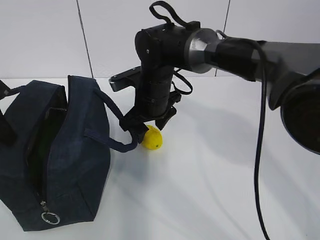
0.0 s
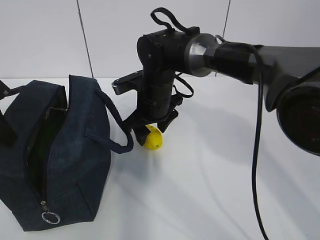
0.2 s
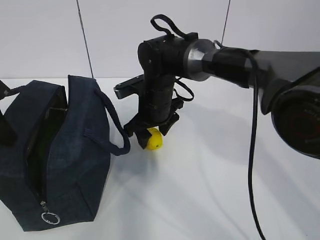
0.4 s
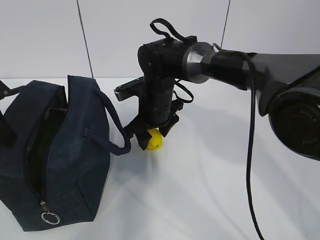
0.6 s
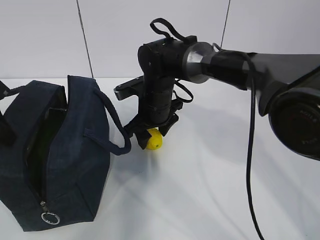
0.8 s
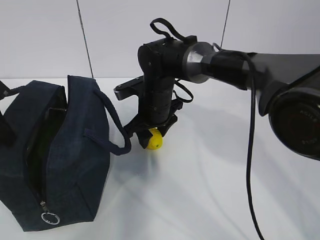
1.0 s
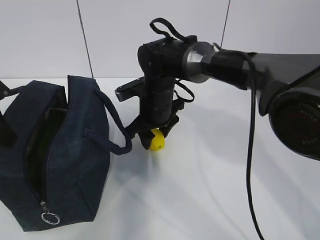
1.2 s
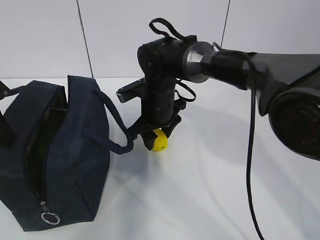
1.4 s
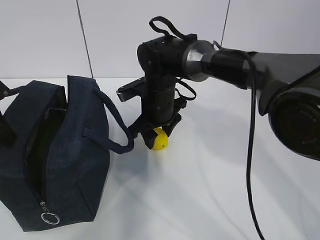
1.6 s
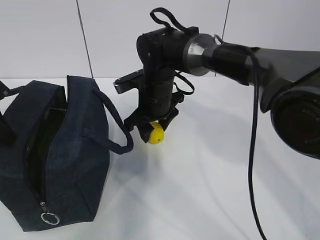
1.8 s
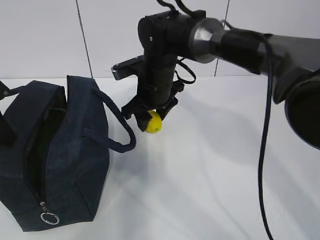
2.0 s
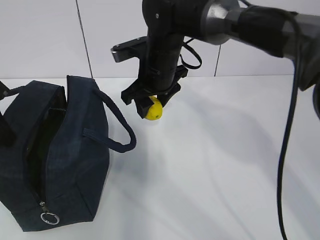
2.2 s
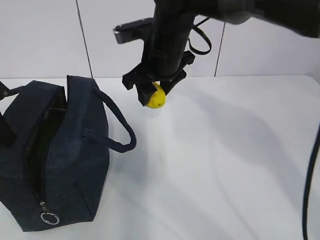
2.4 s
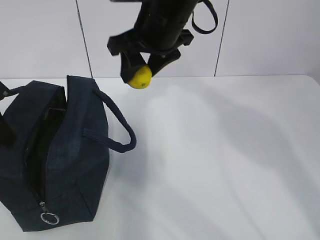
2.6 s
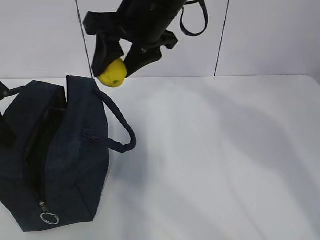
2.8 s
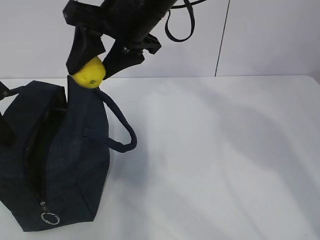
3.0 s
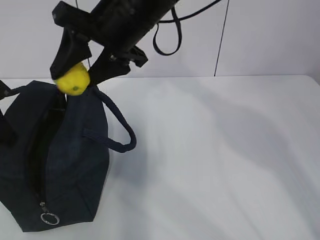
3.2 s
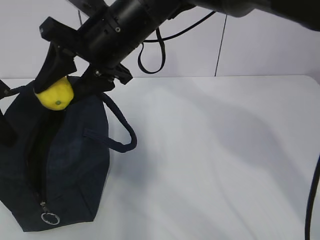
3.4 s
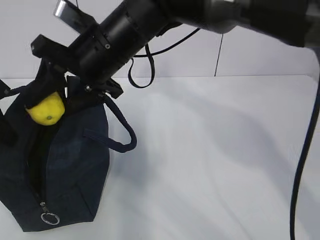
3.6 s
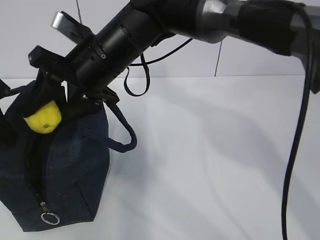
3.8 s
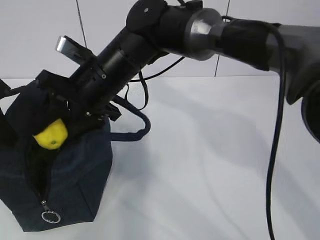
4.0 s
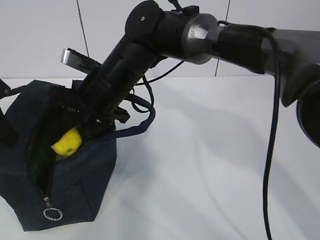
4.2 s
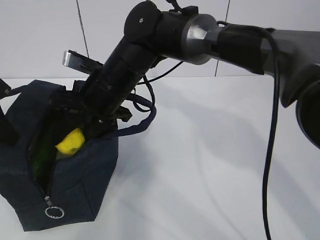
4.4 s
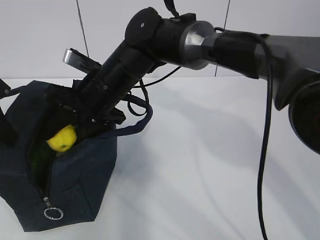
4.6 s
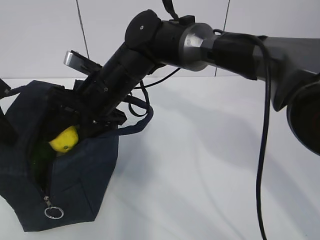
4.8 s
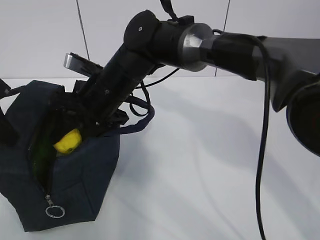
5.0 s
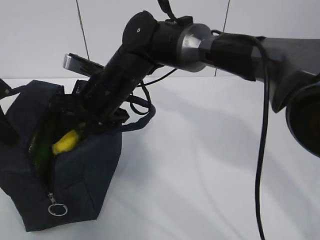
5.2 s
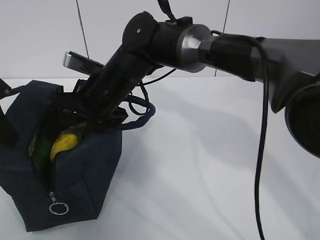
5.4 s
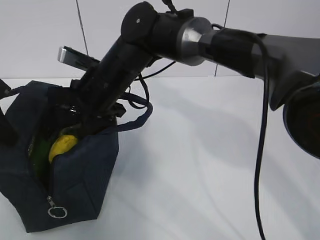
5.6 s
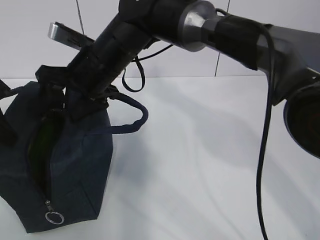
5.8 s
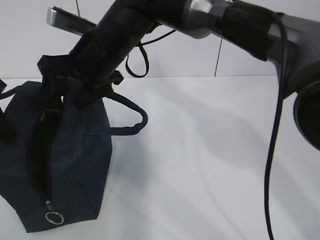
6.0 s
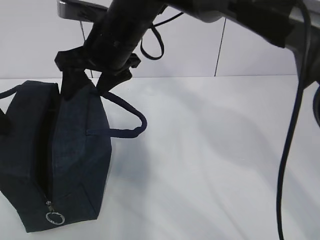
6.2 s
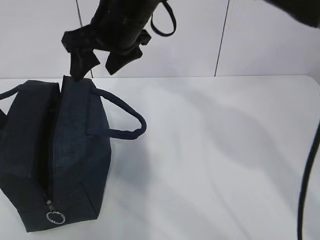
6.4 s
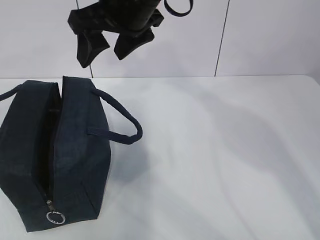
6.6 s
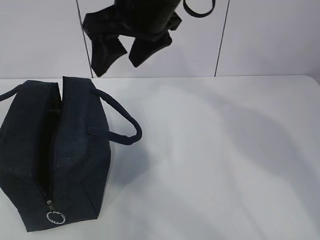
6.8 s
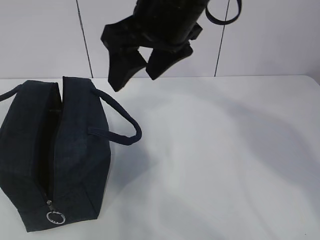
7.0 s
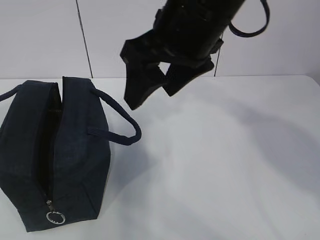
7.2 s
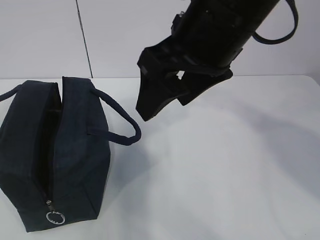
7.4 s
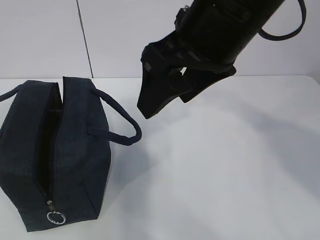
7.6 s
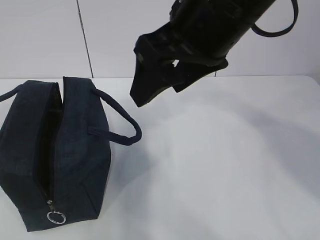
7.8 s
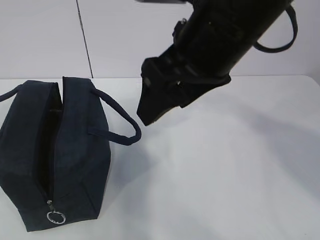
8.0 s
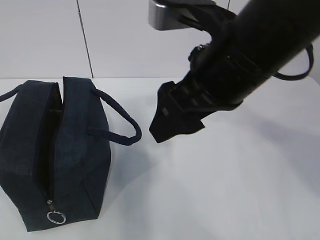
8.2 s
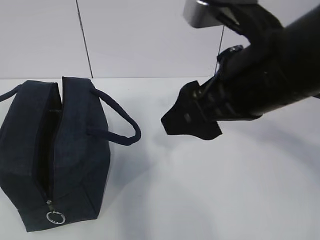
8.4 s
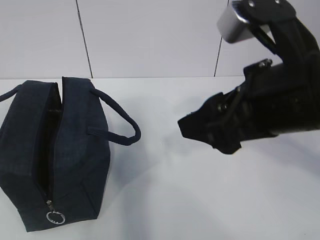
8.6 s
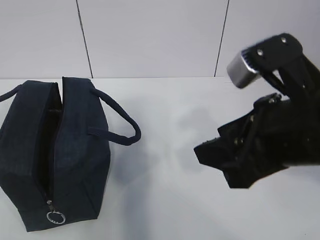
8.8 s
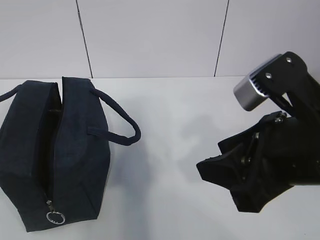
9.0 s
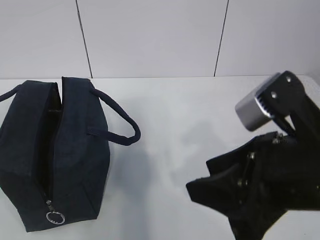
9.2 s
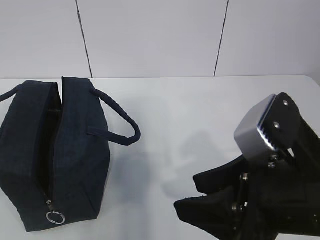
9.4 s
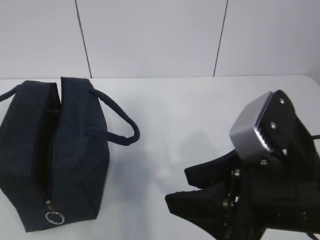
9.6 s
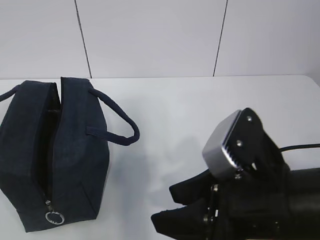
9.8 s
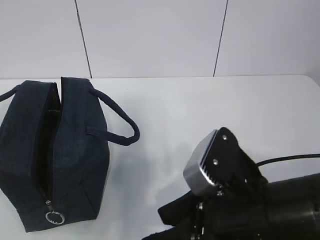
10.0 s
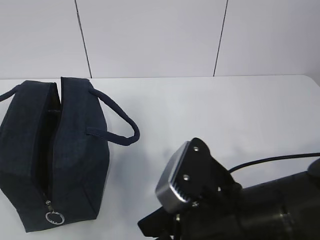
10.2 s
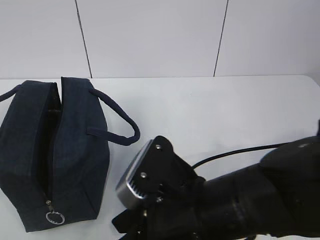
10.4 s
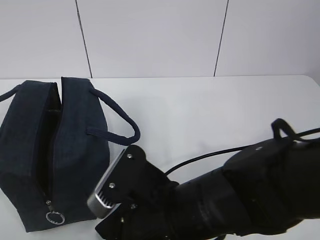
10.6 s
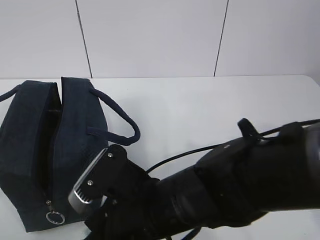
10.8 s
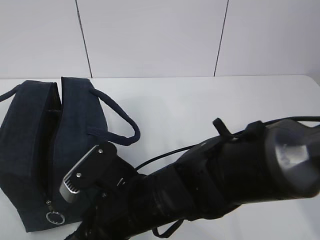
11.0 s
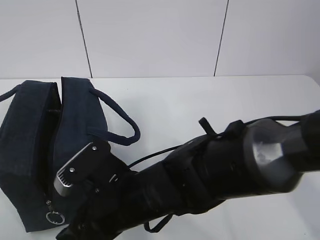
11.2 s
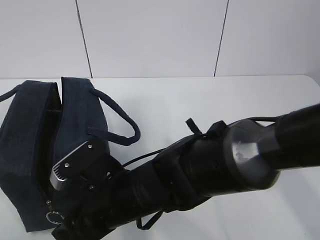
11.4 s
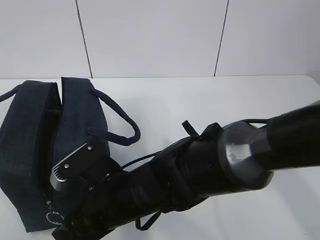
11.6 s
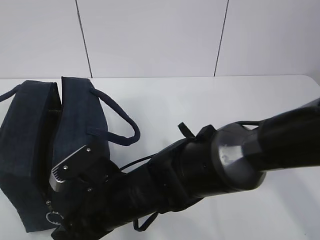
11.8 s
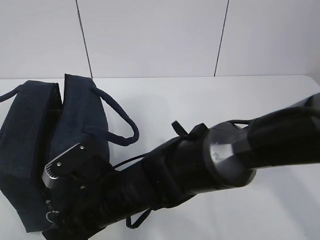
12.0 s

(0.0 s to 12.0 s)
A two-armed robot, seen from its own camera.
0.0 s - 1.6 s: The grippers stay close to where they were, moving slightly.
1.6 s - 3.0 s: The right gripper is displaced upward by about 20 cm.
3.0 s - 4.4 s: The right gripper goes approximately 15 cm downward and to the left.
4.4 s - 6.0 s: The right gripper goes about 5 cm upward.
6.0 s - 7.6 s: The right gripper goes about 20 cm backward, to the right and upward; the left gripper travels backward and upward by about 20 cm.
7.6 s - 9.0 s: The right gripper heads downward, backward and to the right, covering roughly 15 cm.
9.0 s - 10.4 s: The right gripper shifts roughly 15 cm to the left and downward.
10.4 s - 12.0 s: The right gripper heads to the left, downward and forward, covering approximately 15 cm.

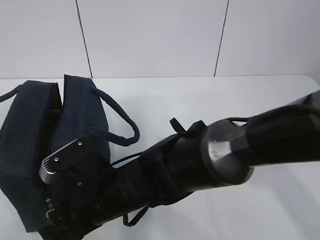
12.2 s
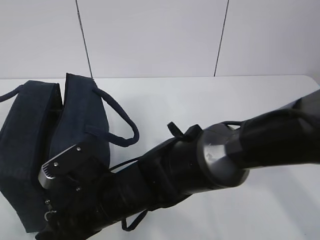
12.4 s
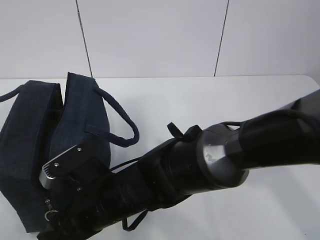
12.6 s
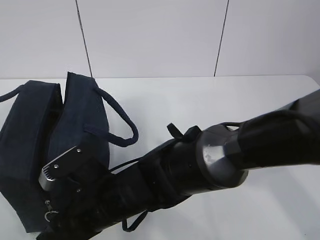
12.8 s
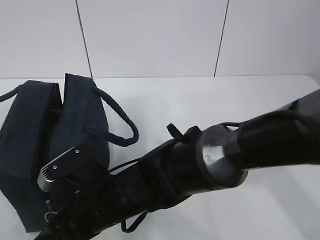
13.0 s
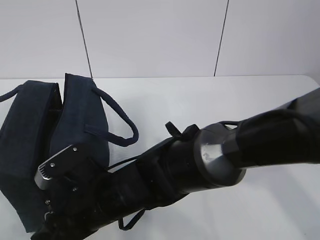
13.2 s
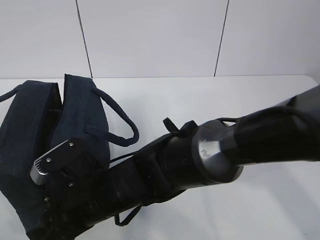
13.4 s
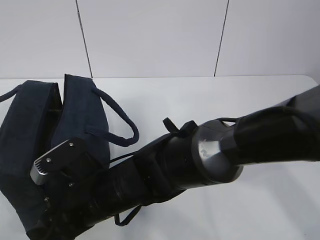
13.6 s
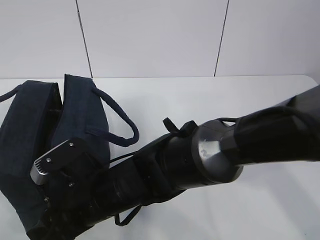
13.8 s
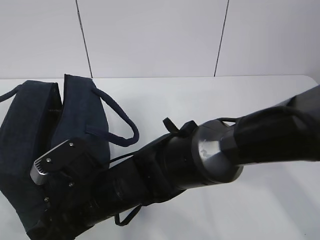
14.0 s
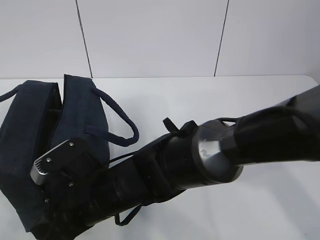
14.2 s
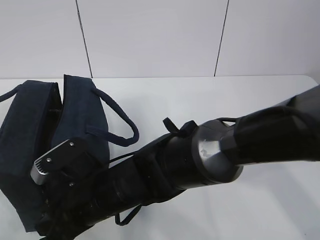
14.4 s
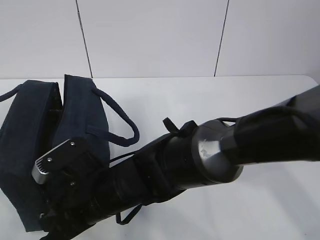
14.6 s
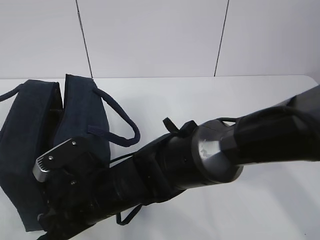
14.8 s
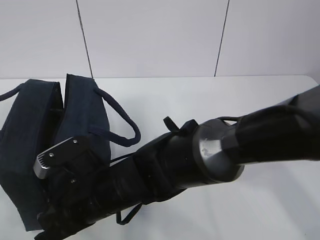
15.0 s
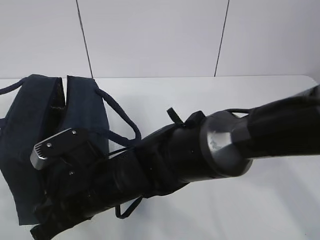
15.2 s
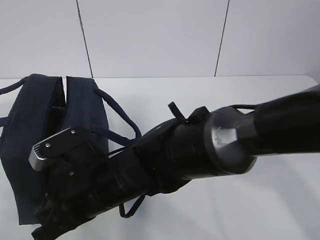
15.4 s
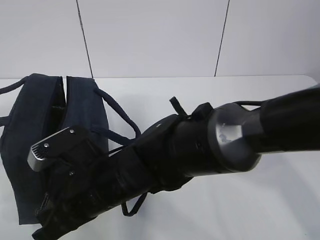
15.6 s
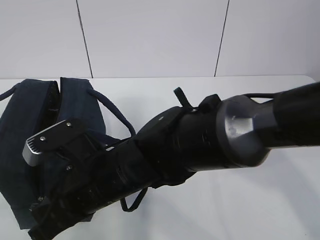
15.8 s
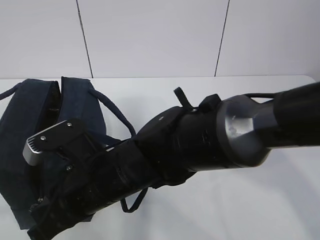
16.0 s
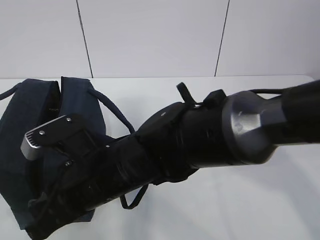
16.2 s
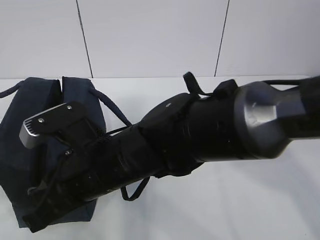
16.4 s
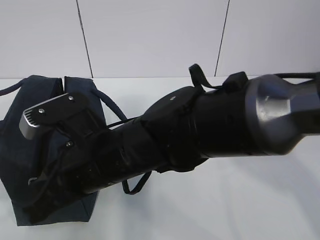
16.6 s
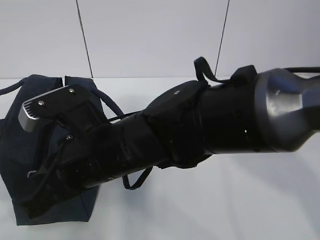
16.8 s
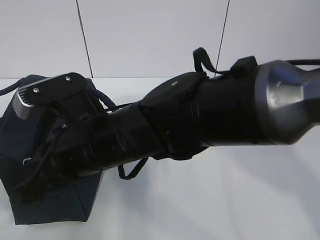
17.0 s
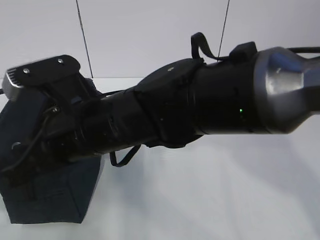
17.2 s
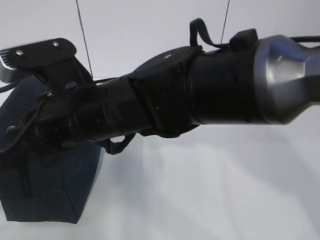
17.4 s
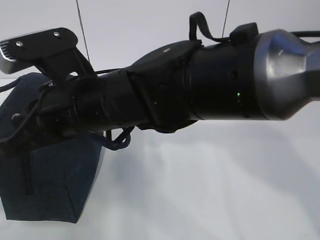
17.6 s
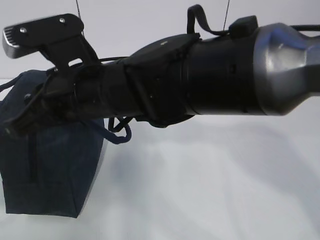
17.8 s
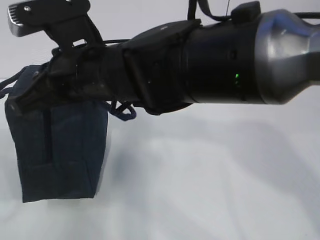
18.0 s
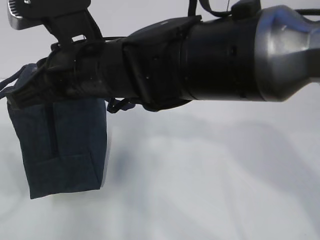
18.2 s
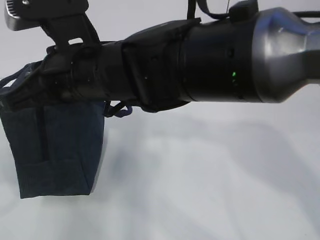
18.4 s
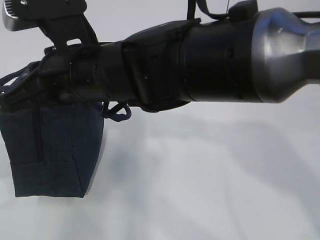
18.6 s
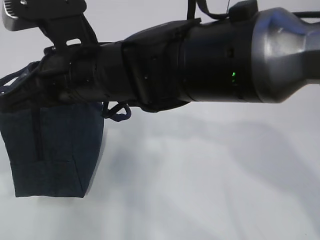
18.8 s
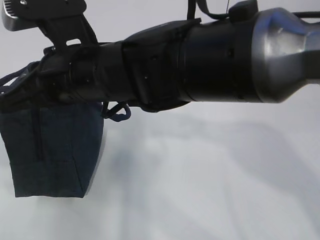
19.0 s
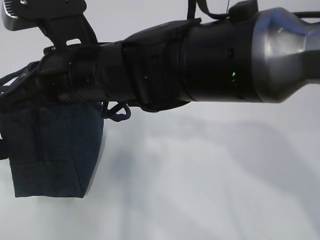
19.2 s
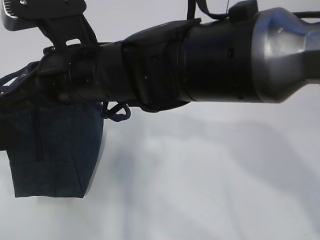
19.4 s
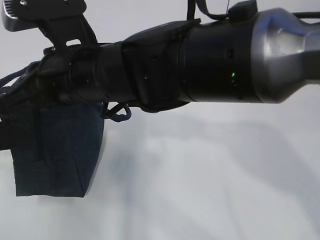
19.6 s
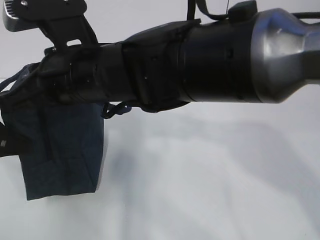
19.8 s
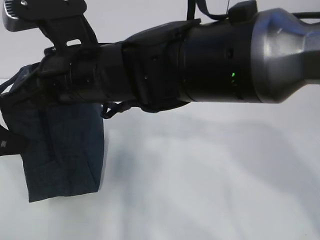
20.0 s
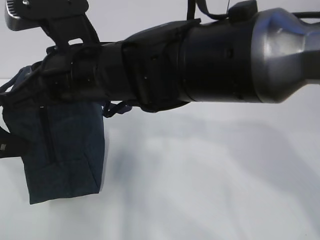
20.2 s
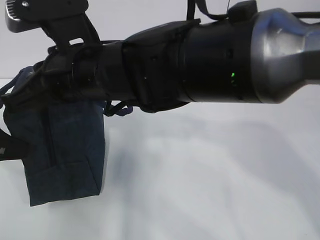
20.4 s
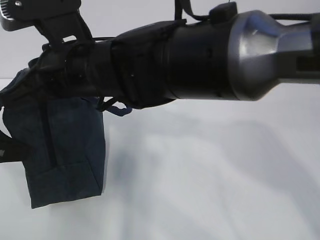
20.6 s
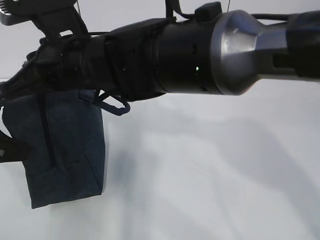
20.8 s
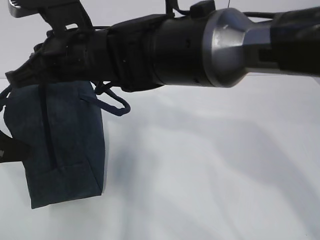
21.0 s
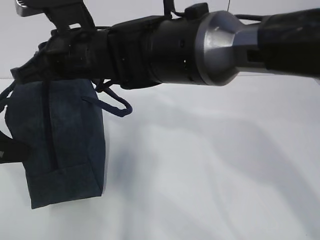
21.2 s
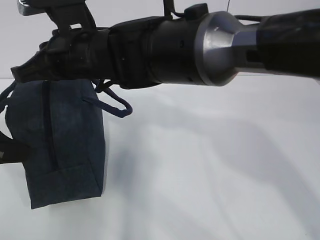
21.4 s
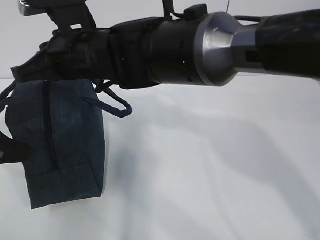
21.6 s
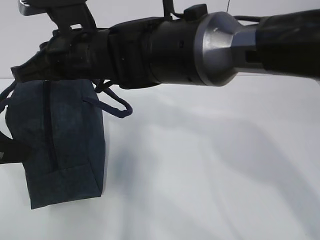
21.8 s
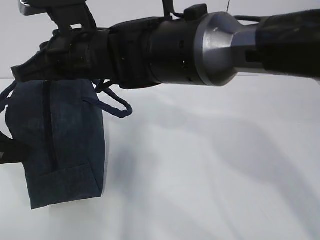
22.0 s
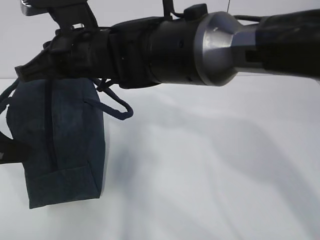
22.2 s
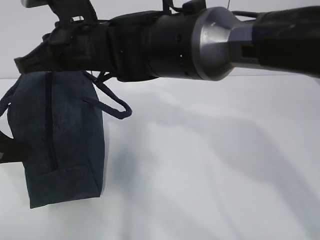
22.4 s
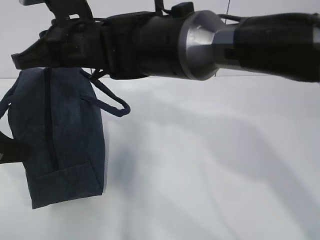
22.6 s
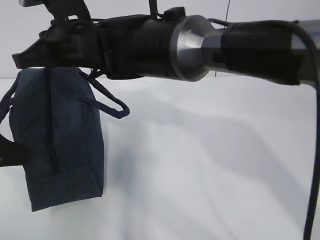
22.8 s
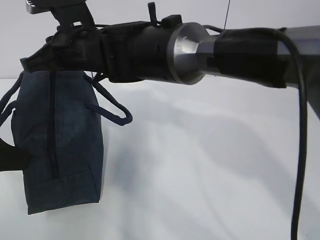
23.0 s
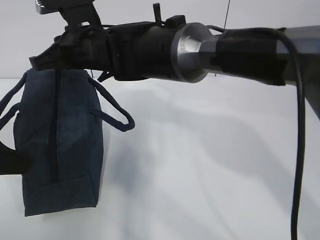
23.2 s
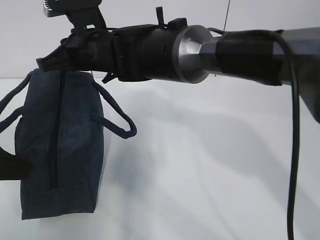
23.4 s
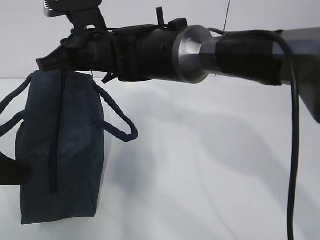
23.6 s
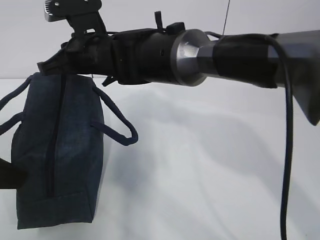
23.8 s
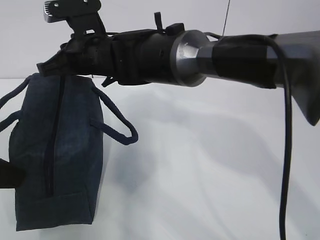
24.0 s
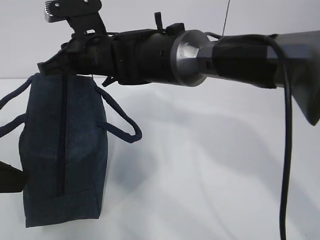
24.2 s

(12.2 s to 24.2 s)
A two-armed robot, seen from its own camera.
Step, 14.0 s - 17.8 s: Pull the zipper with your right hand.
Step, 18.0 s - 20.6 s: Grab the lunch bag with your left hand.
12.2 s - 13.8 s: Neither gripper changes place.
13.8 s - 15.2 s: The right gripper closes its fingers.
15.2 s - 16.6 s: The right gripper heads upward, covering some 5 cm; the left gripper heads downward, covering approximately 10 cm.
16.6 s - 18.2 s: The right gripper heads upward and forward, covering some 10 cm.
18.2 s - 19.8 s: The left gripper goes approximately 10 cm forward.
19.8 s - 21.2 s: The left gripper closes its fingers. Meanwhile the right gripper travels forward by some 5 cm.
21.2 s - 22.6 s: The grippers move only a little.
22.6 s - 24.2 s: The right gripper ends up some 5 cm from where it was; the left gripper opens.
